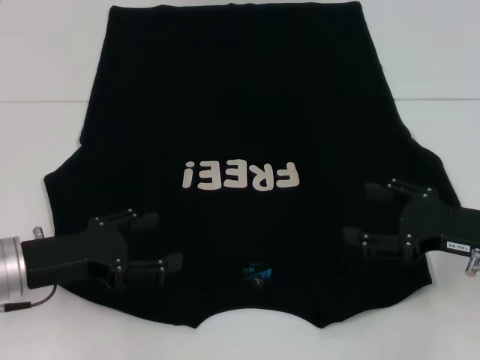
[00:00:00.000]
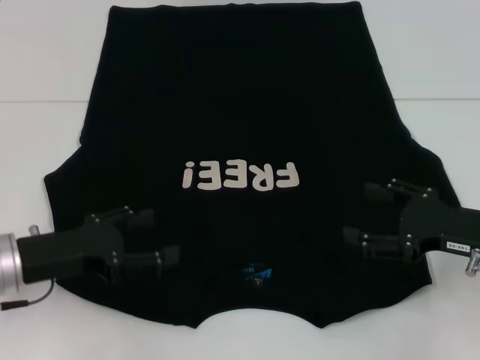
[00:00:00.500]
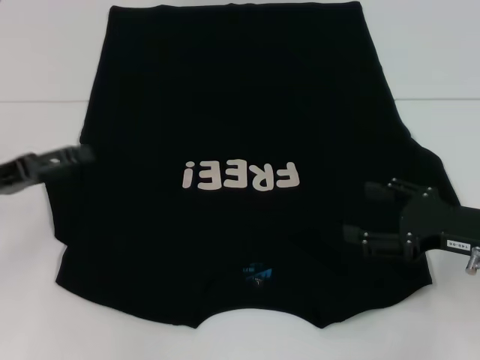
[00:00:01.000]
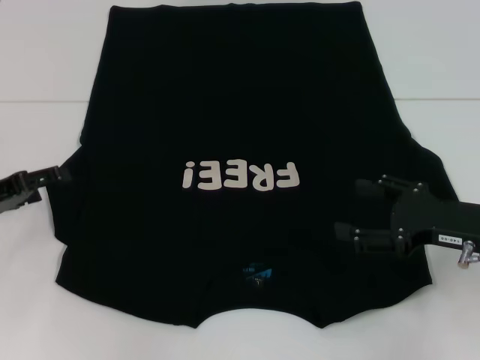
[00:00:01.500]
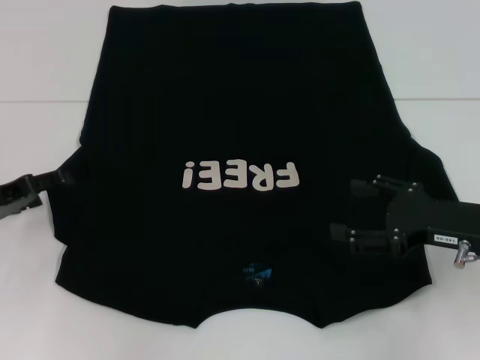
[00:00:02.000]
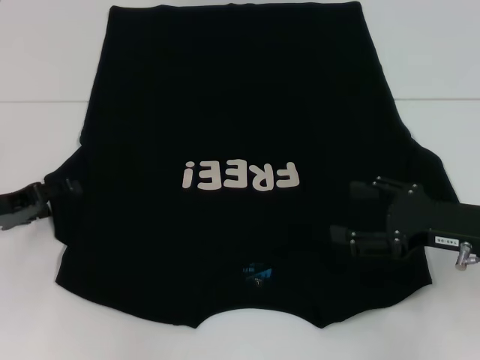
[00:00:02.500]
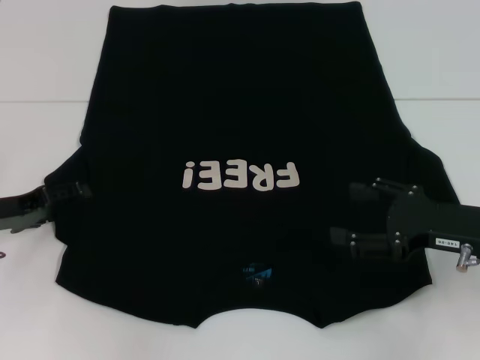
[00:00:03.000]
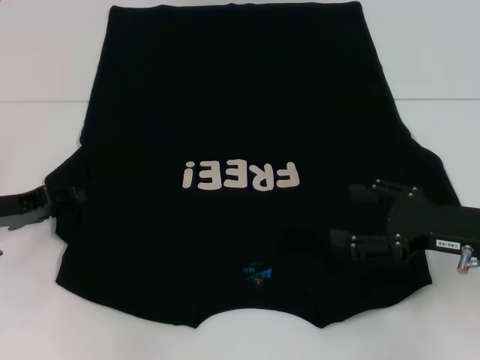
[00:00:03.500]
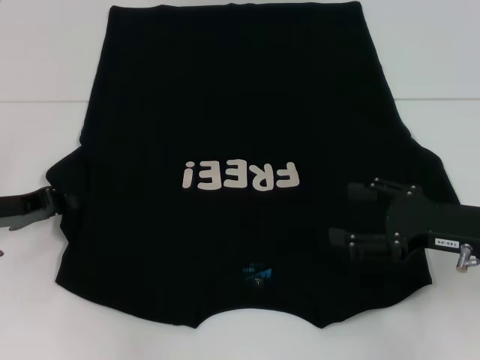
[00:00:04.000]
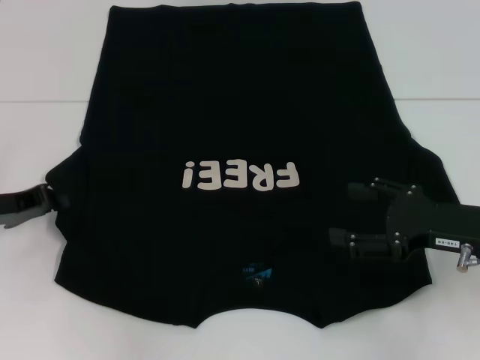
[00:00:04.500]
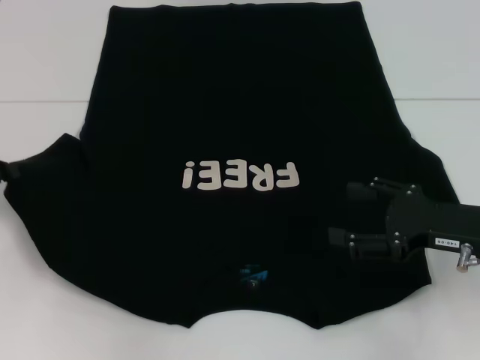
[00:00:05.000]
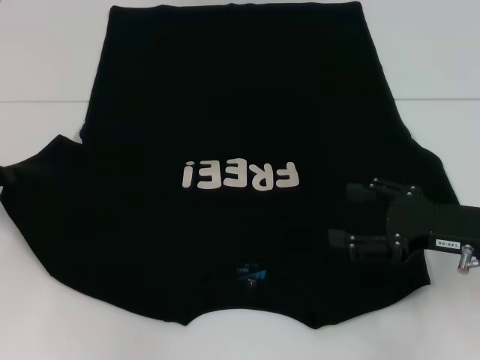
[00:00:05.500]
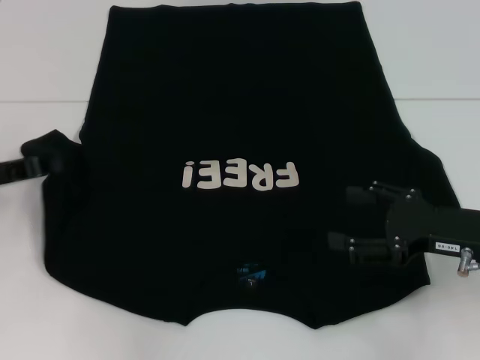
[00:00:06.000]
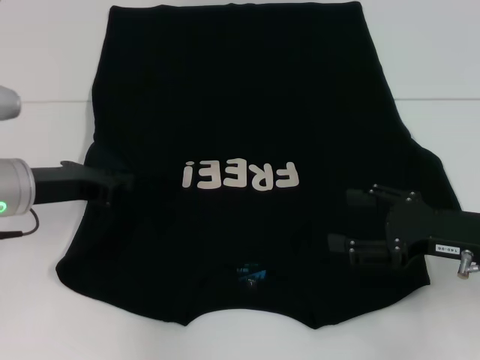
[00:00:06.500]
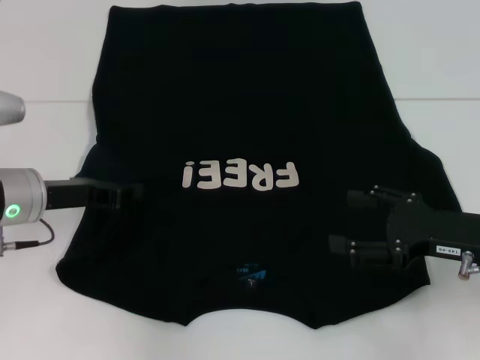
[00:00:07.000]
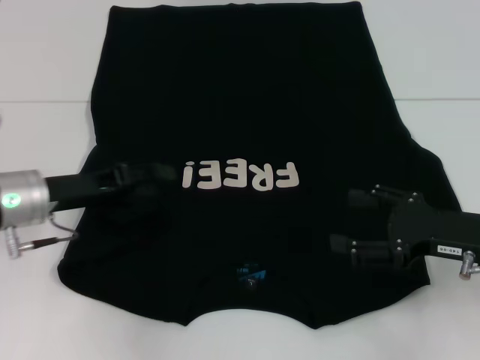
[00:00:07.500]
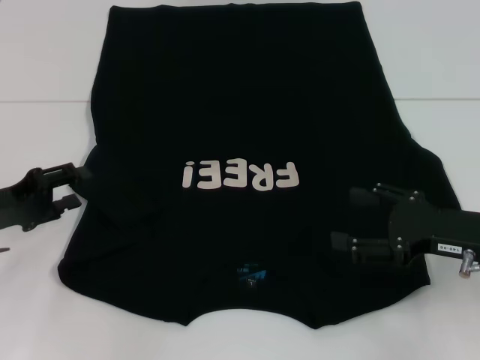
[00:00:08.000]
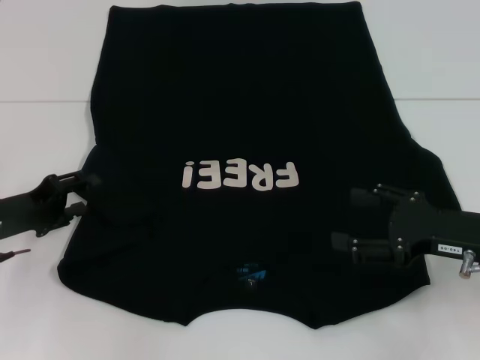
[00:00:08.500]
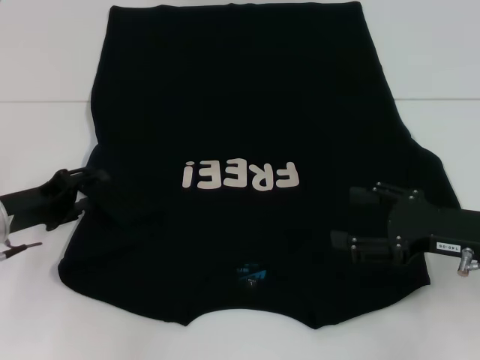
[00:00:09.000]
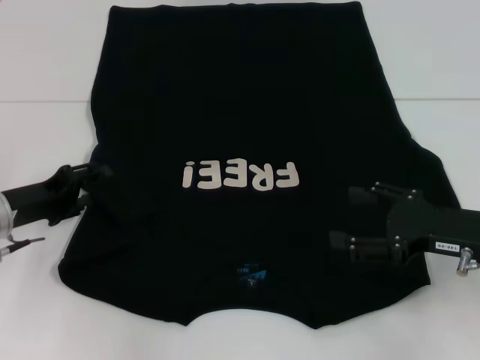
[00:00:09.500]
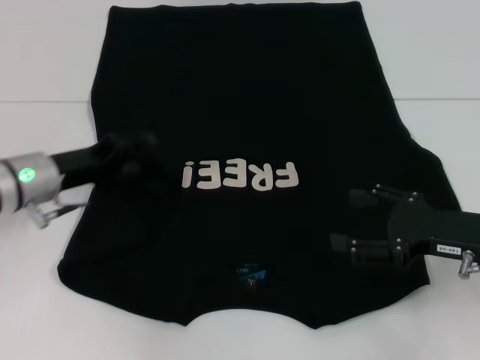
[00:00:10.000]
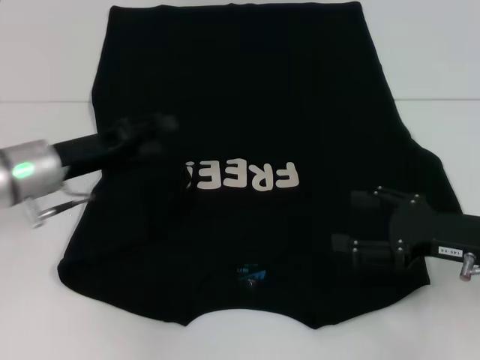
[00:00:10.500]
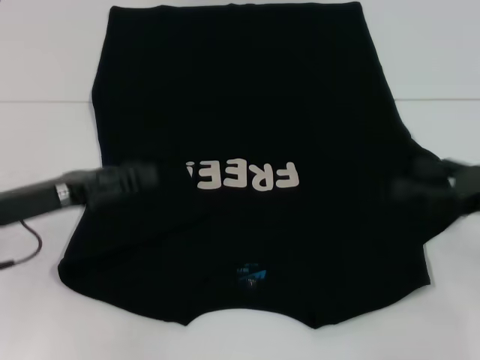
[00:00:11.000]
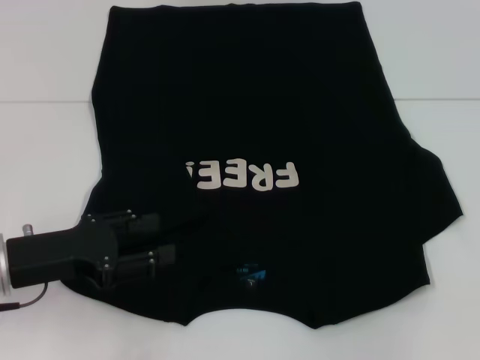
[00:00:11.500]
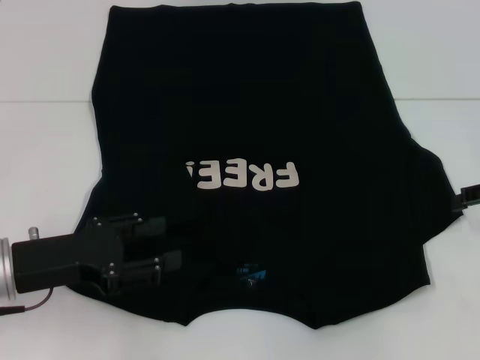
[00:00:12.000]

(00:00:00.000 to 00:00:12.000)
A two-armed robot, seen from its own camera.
Step, 00:00:00.000 - 00:00:10.500: Fold the bottom left sleeve with your left hand.
00:00:00.000 - 00:00:02.000: The left gripper travels to the left and forward by approximately 10 cm.
00:00:02.000 - 00:00:04.000: The left gripper closes up.
00:00:04.000 - 00:00:06.000: The left gripper closes.
00:00:06.000 - 00:00:08.000: The left gripper travels to the right and back again, approximately 10 cm each way, and opens up.
00:00:08.000 - 00:00:10.000: The left gripper travels to the right and forward by some 10 cm.
00:00:10.000 - 00:00:12.000: The right gripper moves to the right, forward and upward, approximately 15 cm. The left gripper goes roughly 10 cm backward.

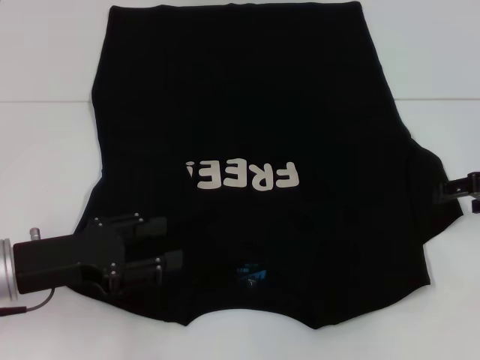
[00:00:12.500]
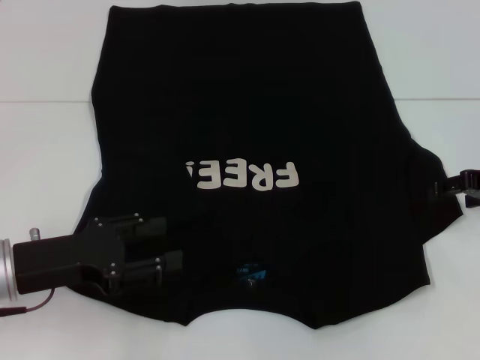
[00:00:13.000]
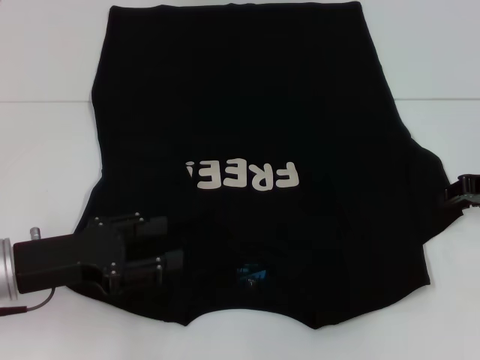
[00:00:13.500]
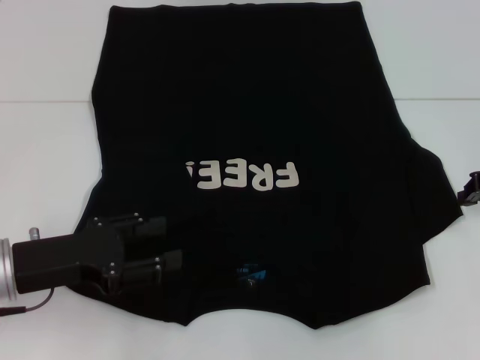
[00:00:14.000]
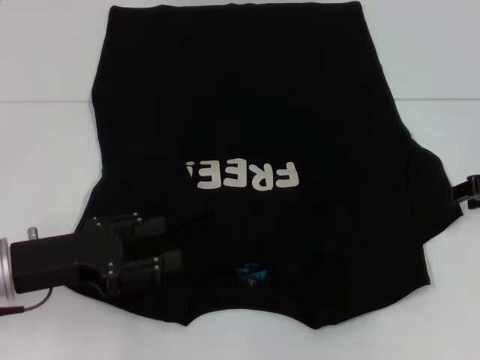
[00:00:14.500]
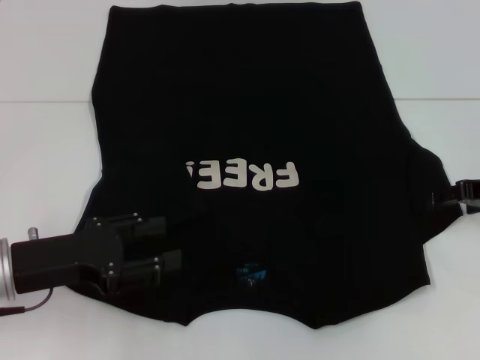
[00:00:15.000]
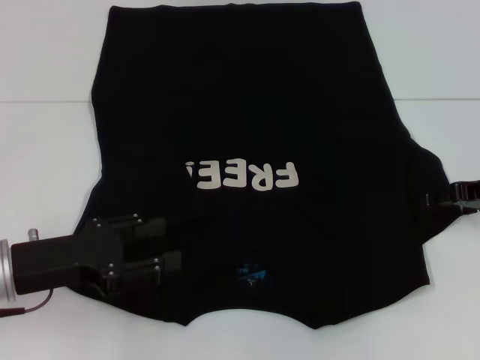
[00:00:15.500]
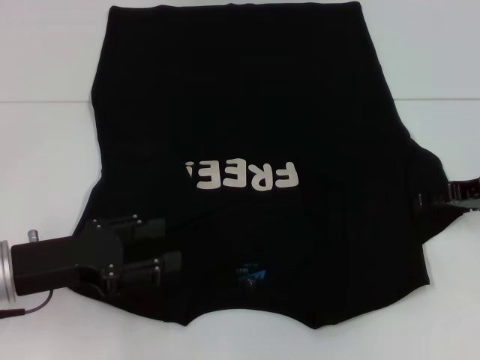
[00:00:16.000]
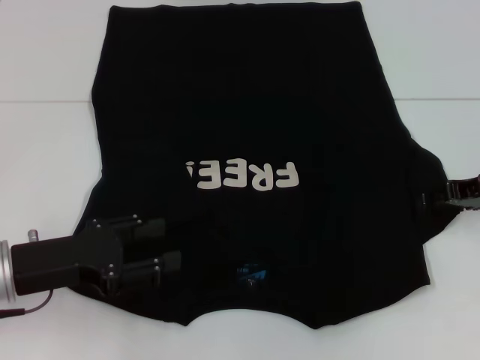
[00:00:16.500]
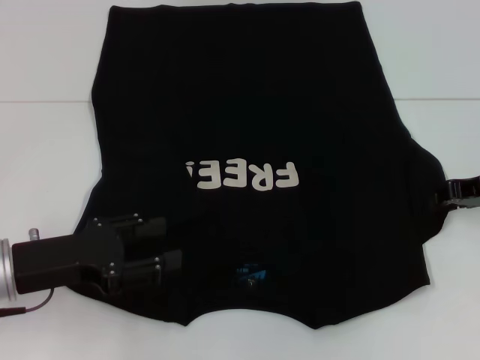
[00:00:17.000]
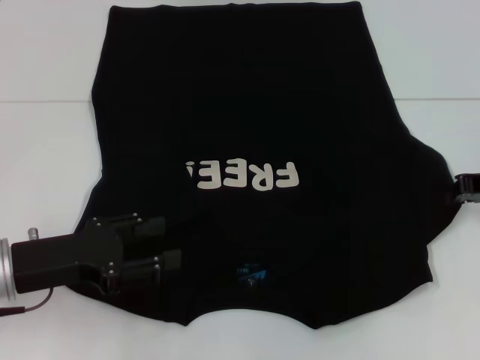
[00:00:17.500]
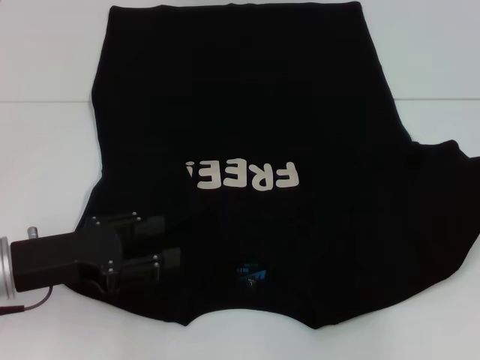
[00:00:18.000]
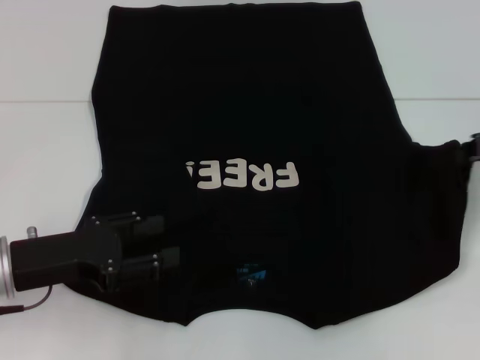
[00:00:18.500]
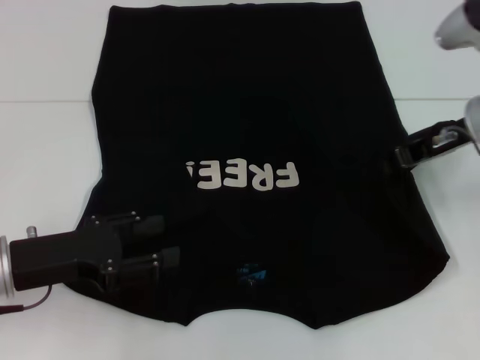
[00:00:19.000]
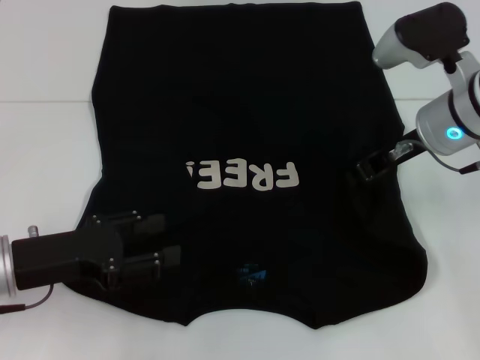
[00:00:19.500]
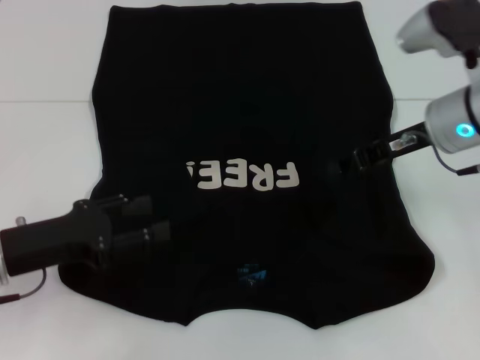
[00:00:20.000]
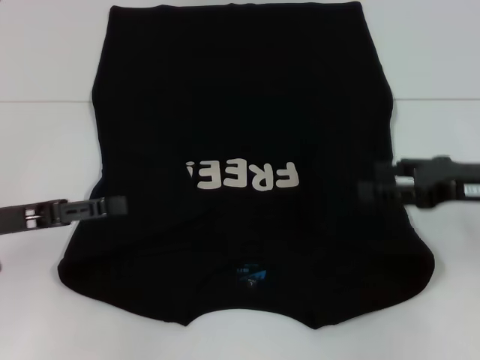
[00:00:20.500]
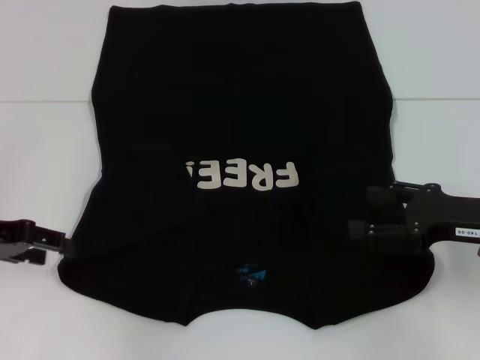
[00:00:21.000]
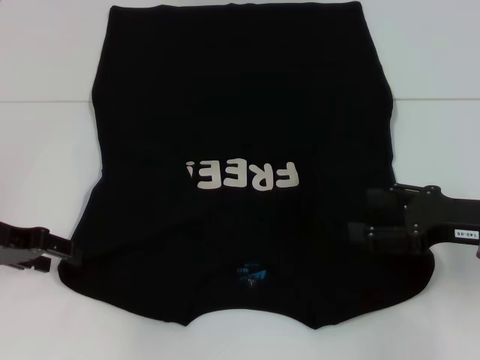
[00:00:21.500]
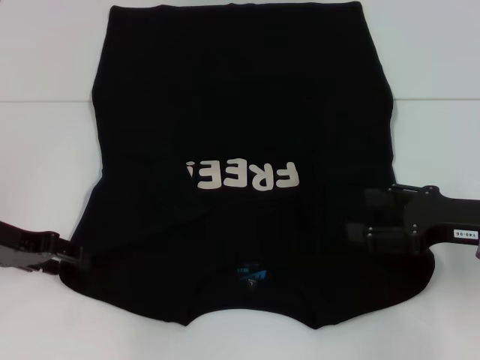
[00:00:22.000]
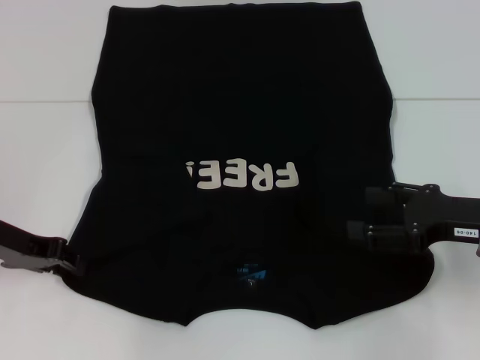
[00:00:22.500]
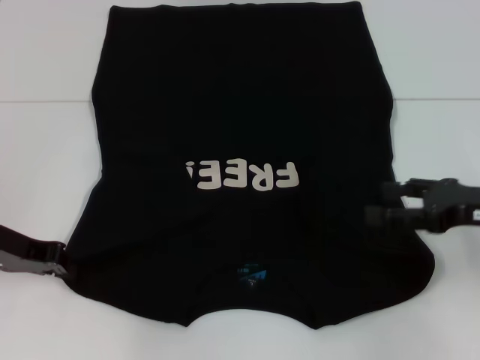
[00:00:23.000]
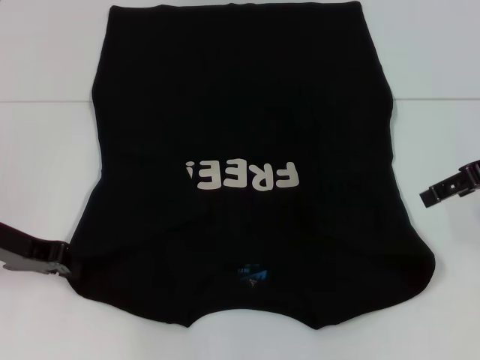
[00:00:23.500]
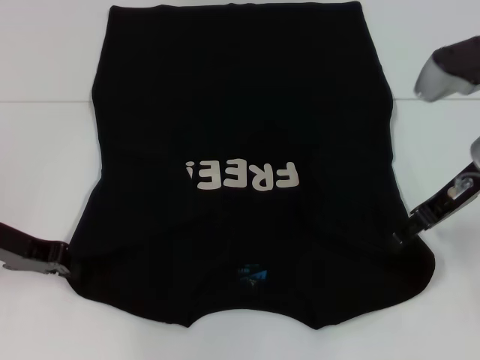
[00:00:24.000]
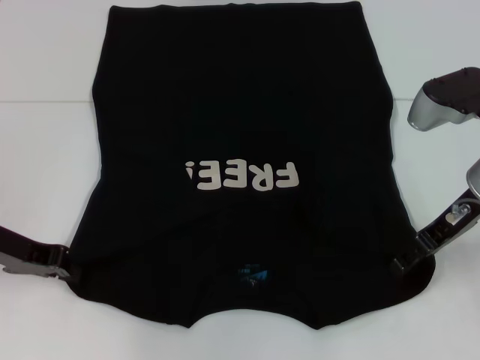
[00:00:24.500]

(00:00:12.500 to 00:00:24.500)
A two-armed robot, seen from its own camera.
Step, 00:00:12.500 - 00:00:20.000: Fold the bottom right sleeve with your right hand.
Step, 00:00:20.500 - 00:00:23.000: Grab the bottom left corner with your left hand.
00:00:16.500 - 00:00:18.500: The right gripper travels upward by roughly 5 cm, and closes its fingers.
00:00:18.500 - 00:00:20.500: The left gripper ends up approximately 5 cm from where it was. The right gripper heads backward, covering roughly 5 cm, moves about 15 cm to the left and comes back, and opens.
00:00:22.500 - 00:00:24.500: The left gripper closes, while the right gripper travels forward and to the left by some 10 cm.

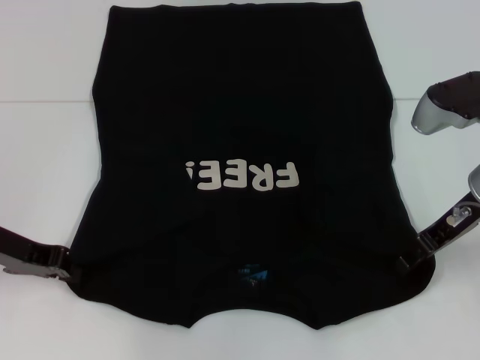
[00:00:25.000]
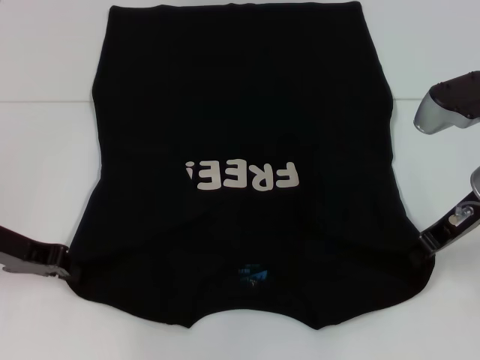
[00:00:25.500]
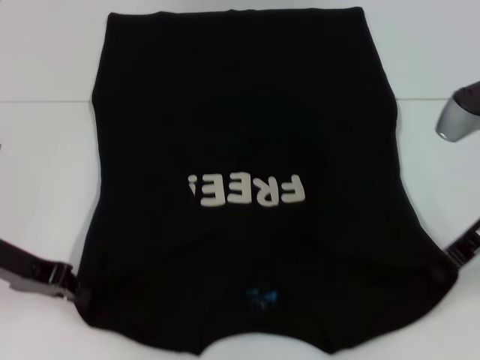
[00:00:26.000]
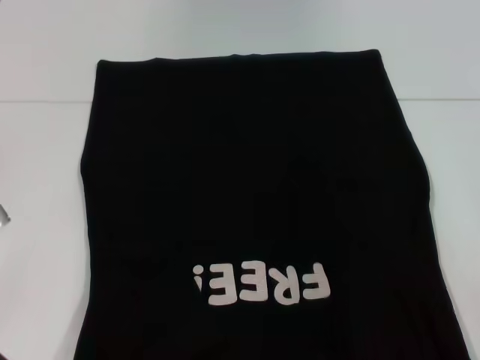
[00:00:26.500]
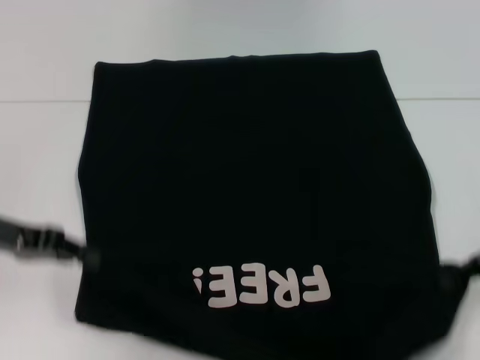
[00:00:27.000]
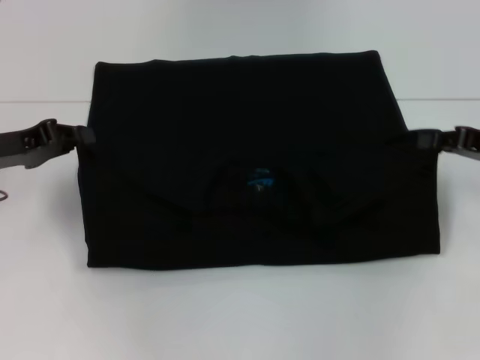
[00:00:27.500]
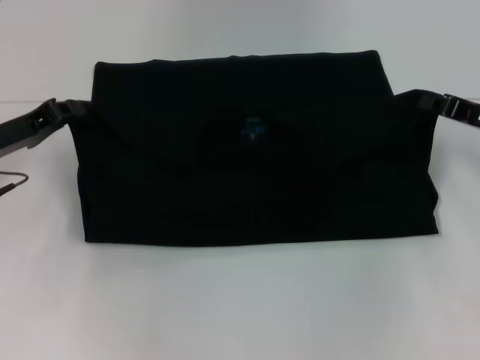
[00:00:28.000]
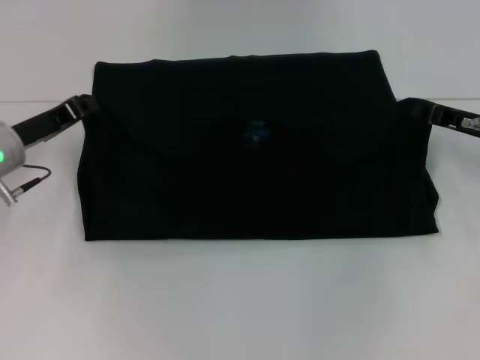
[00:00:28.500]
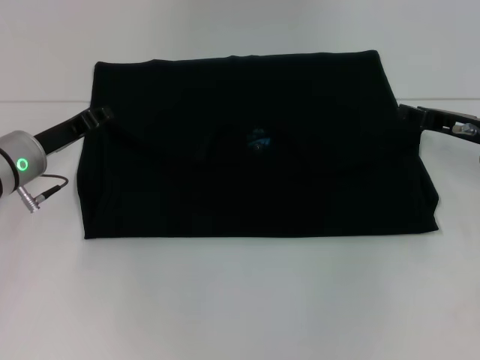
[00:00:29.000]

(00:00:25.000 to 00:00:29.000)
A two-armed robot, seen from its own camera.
00:00:25.000 - 00:00:27.000: The right gripper heads to the right, covering some 10 cm, and closes up.
00:00:27.000 - 00:00:29.000: The right gripper goes roughly 10 cm forward. Meanwhile the left gripper heads forward and downward, covering roughly 10 cm.
